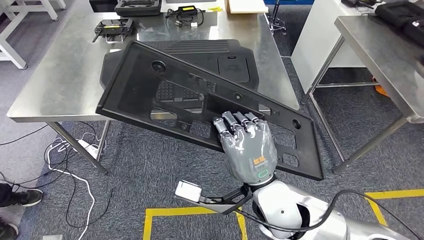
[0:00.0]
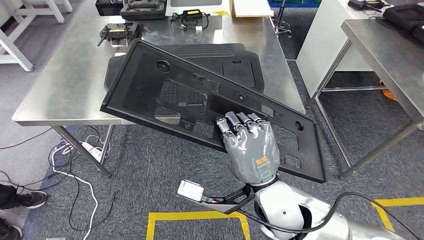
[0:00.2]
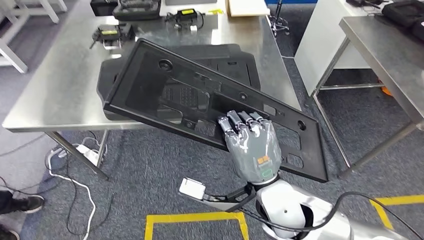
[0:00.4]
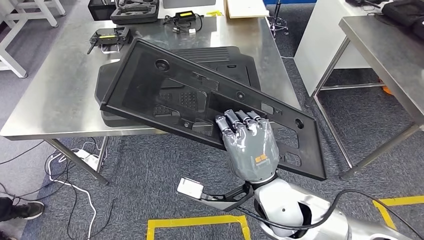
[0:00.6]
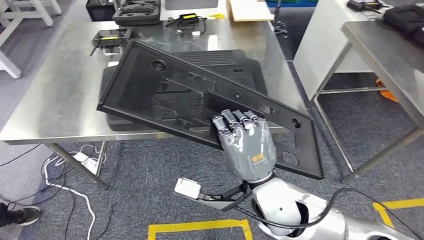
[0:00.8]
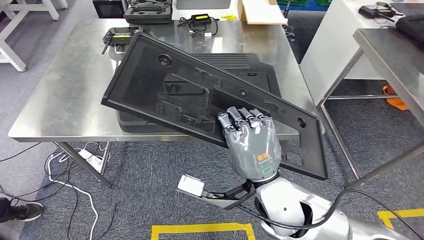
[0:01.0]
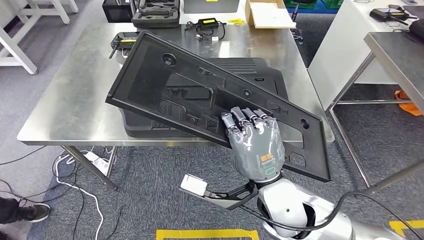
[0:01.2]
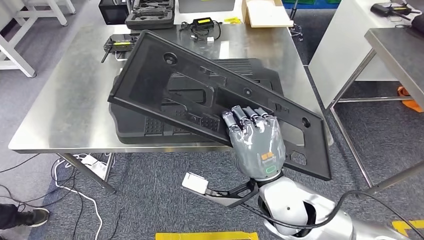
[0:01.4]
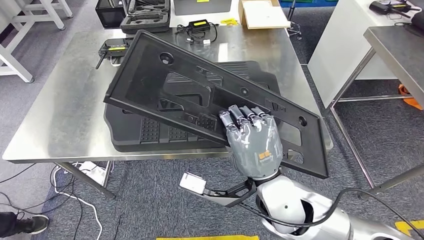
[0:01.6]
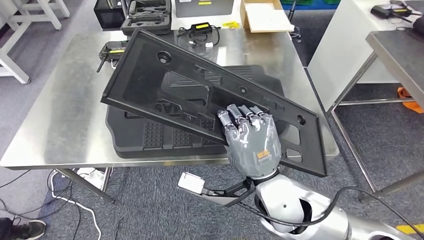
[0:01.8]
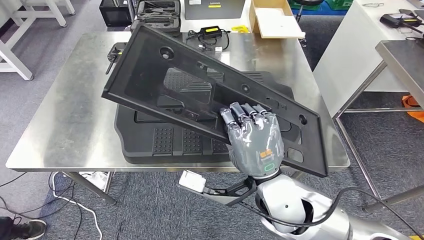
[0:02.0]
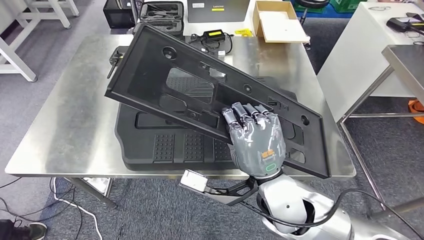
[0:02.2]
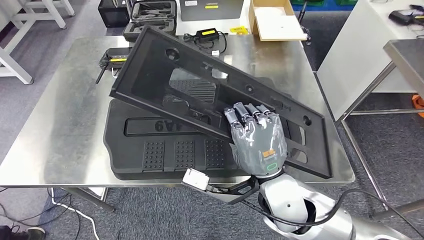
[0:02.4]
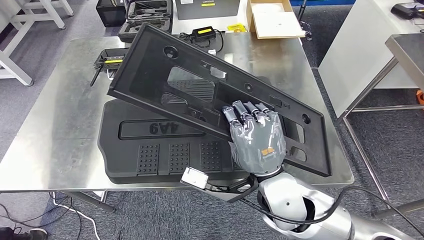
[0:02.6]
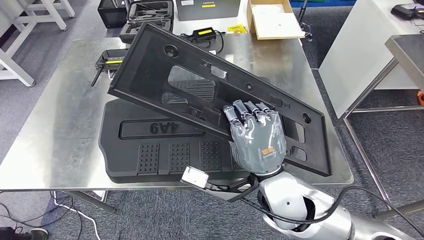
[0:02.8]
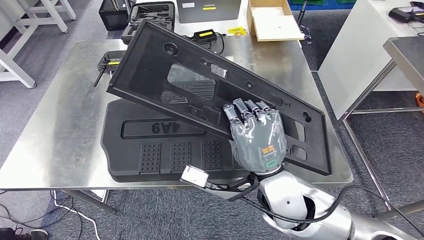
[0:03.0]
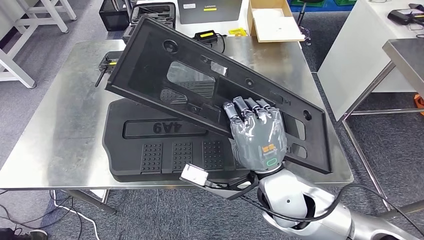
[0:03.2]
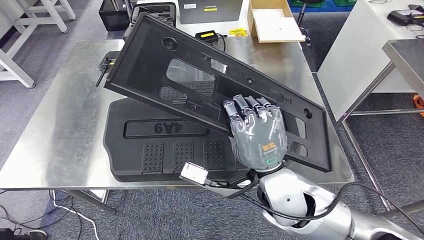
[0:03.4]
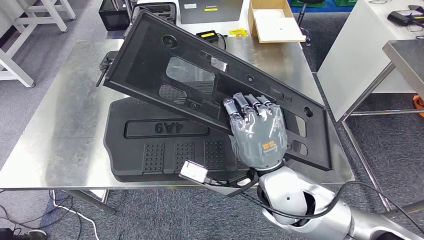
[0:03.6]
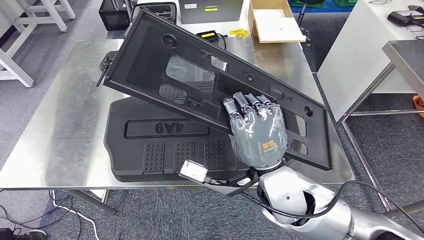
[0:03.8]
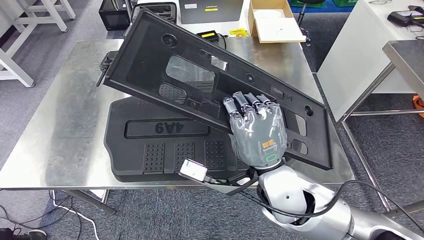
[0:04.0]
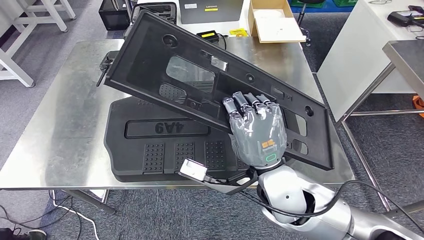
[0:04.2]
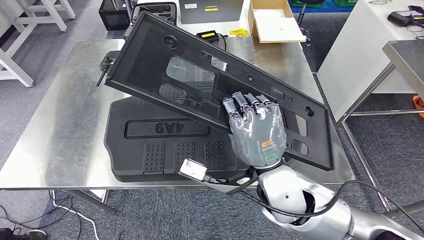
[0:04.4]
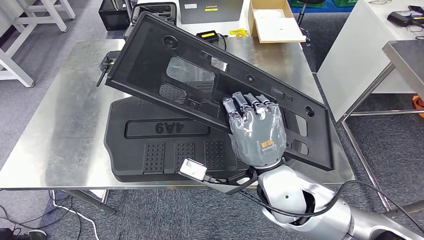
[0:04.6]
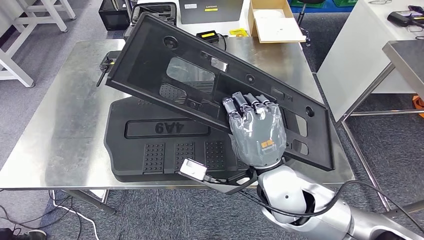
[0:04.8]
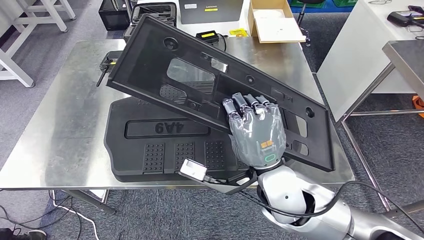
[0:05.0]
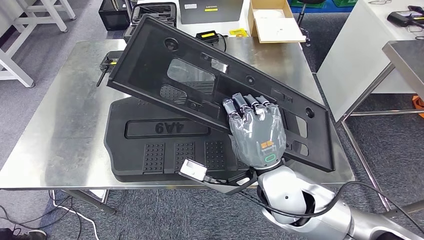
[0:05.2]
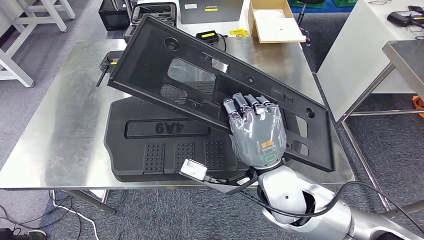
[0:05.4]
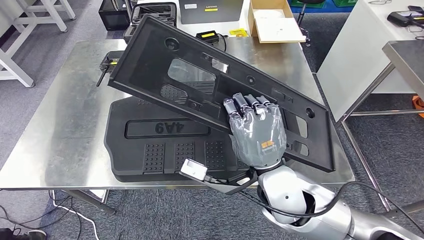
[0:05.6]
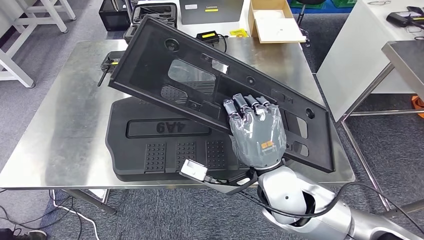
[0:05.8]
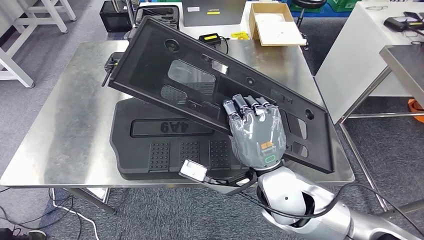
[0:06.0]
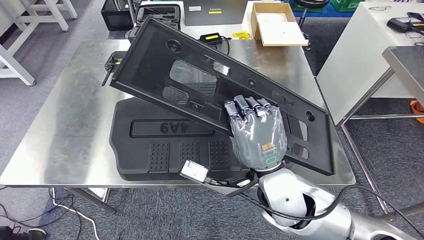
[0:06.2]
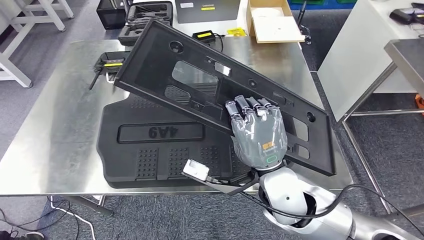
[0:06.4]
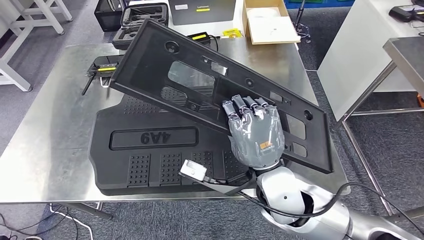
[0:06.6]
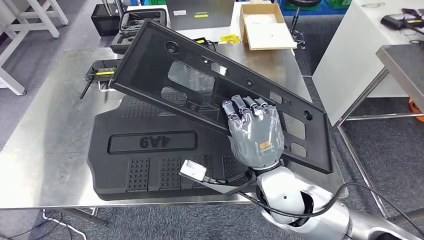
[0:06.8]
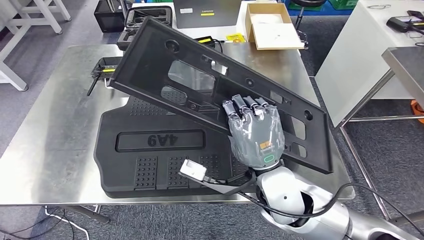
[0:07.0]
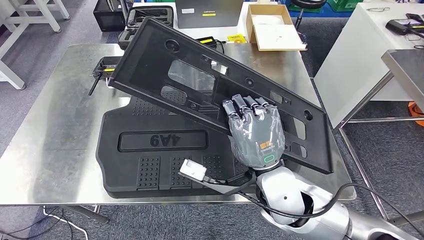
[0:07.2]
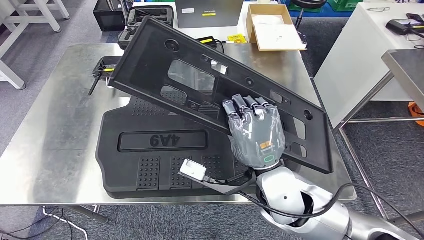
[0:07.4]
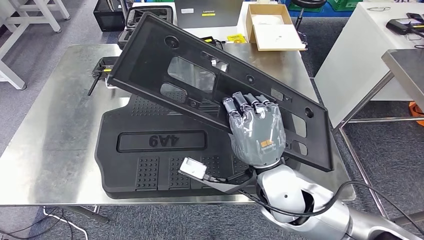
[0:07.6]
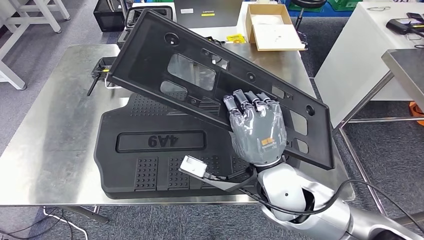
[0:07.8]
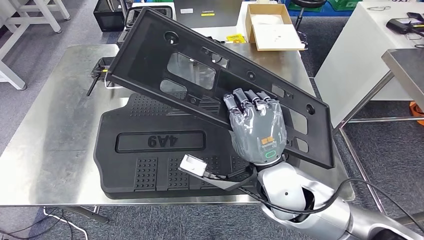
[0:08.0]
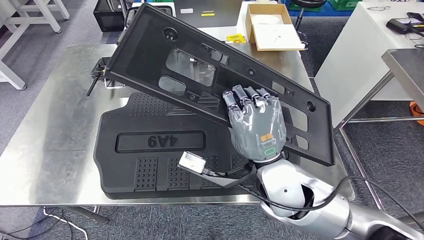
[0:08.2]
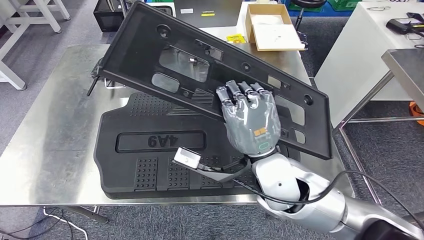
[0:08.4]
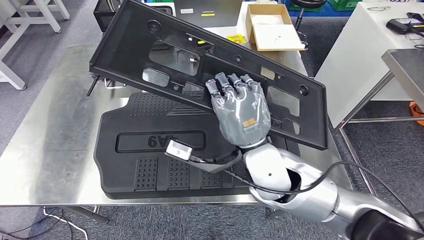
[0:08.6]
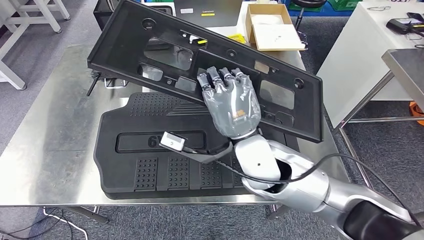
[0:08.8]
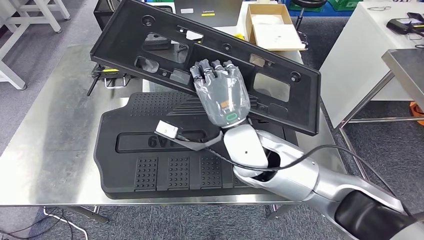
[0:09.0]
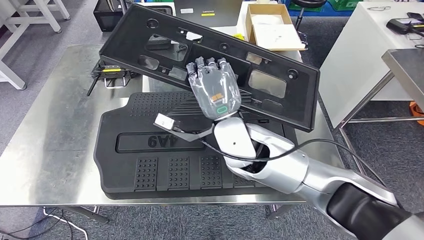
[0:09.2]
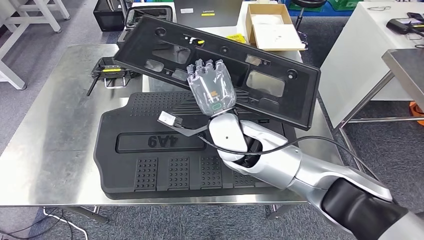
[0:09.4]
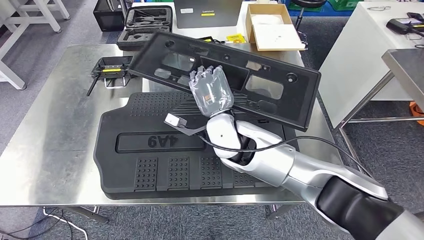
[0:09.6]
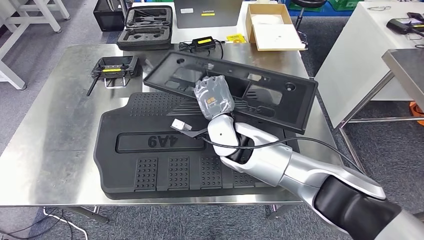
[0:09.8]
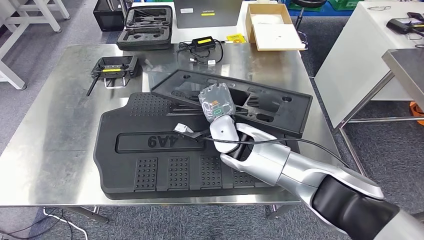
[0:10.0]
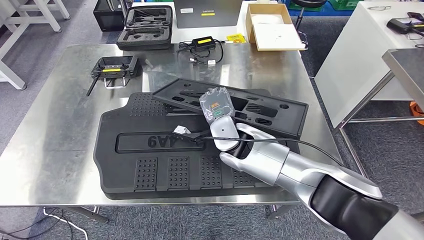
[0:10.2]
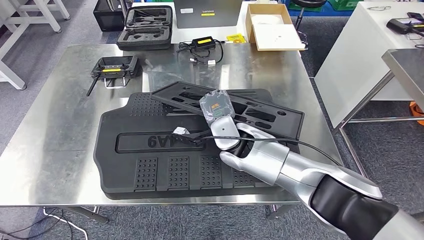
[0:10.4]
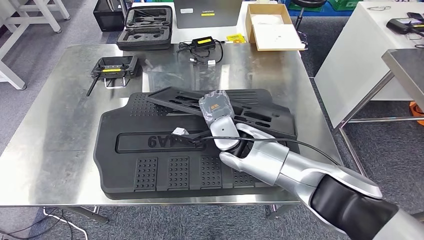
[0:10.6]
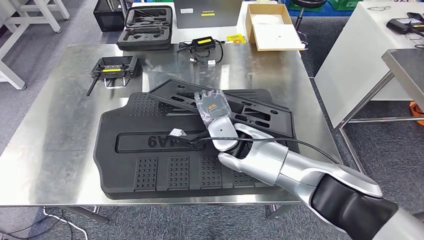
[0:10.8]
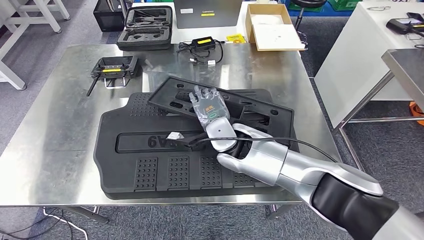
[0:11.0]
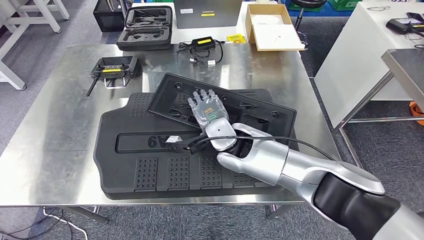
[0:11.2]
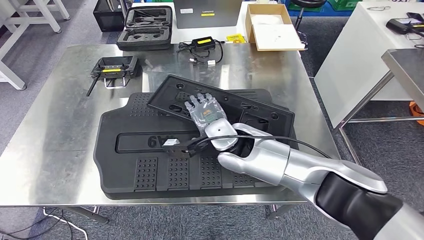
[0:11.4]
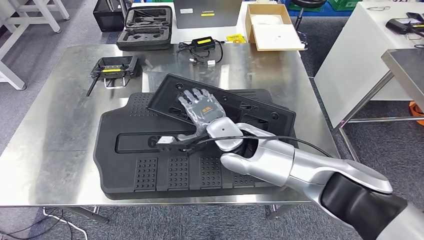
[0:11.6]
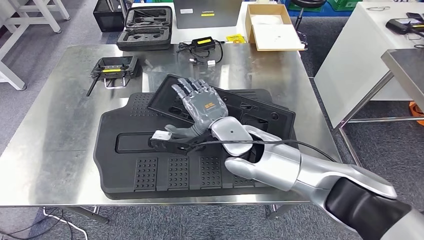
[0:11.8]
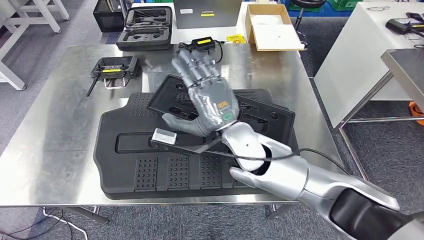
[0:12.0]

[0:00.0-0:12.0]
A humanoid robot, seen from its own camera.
0:04.4 to 0:06.0: The two hands keep their place.
0:10.4 to 0:12.0: The right hand travels backward and upward by roughly 10 cm.

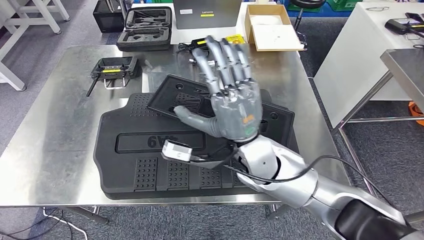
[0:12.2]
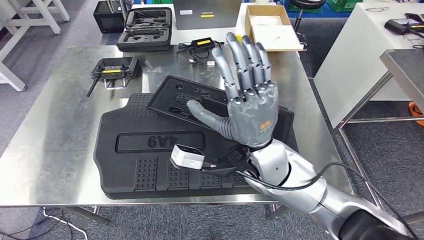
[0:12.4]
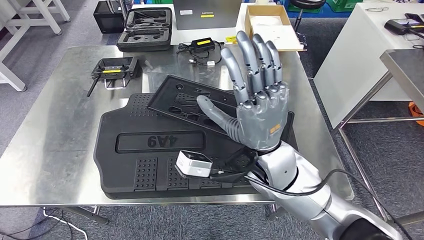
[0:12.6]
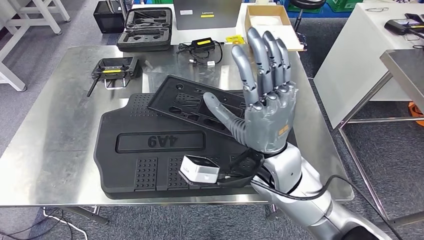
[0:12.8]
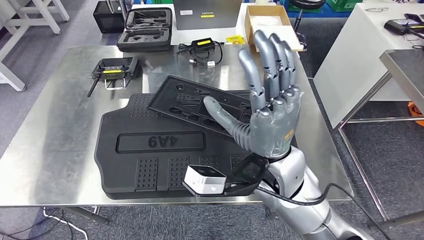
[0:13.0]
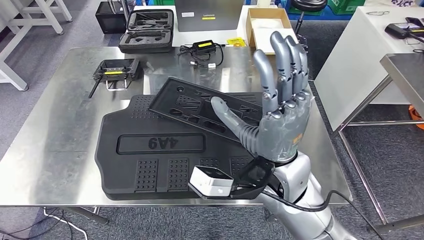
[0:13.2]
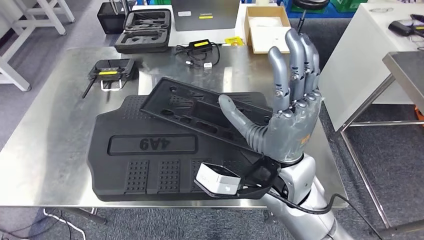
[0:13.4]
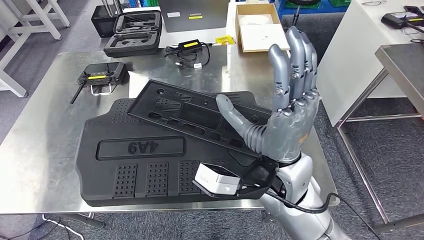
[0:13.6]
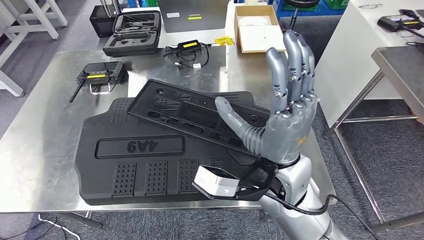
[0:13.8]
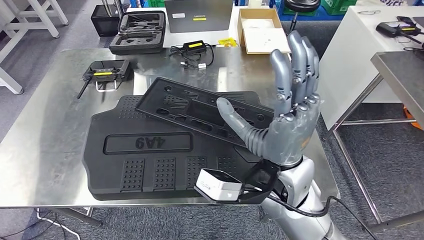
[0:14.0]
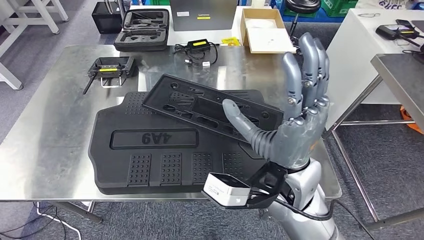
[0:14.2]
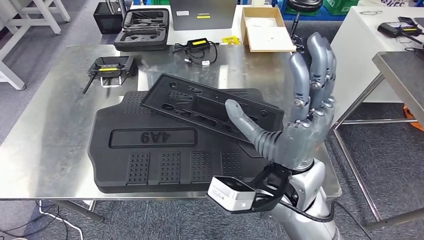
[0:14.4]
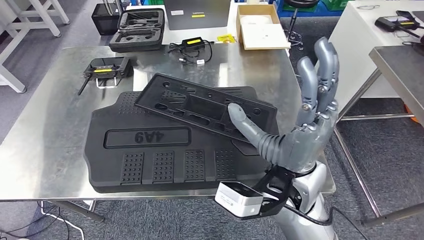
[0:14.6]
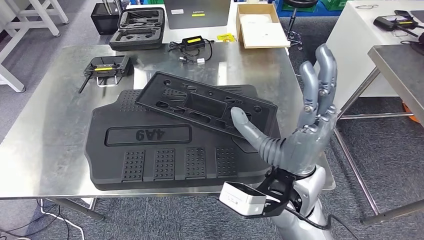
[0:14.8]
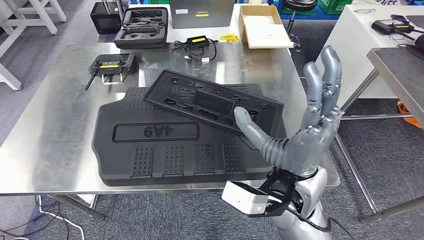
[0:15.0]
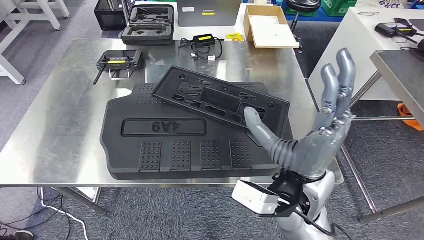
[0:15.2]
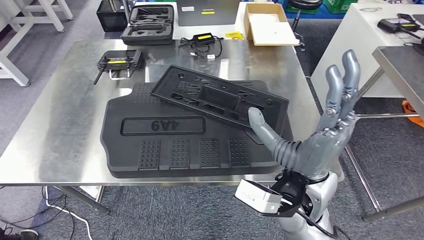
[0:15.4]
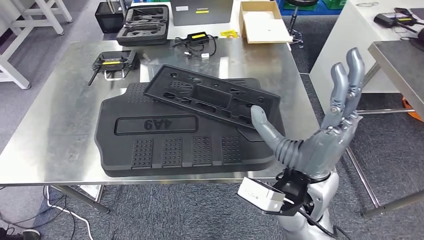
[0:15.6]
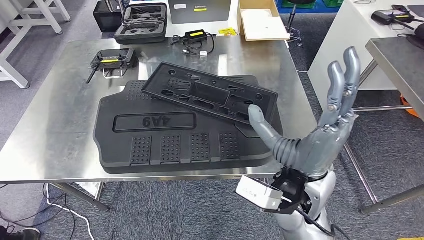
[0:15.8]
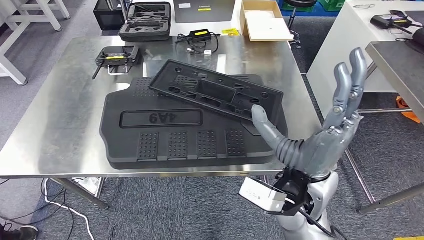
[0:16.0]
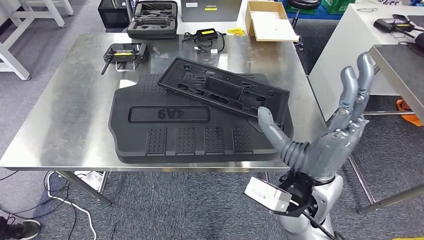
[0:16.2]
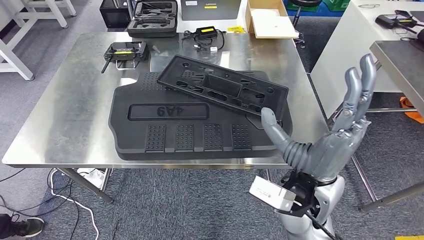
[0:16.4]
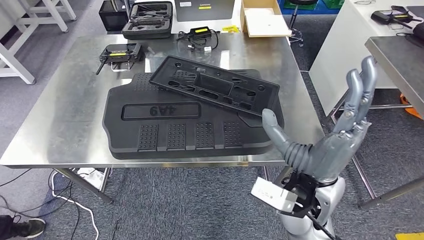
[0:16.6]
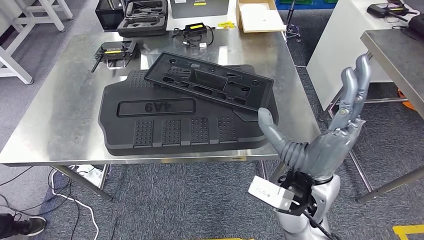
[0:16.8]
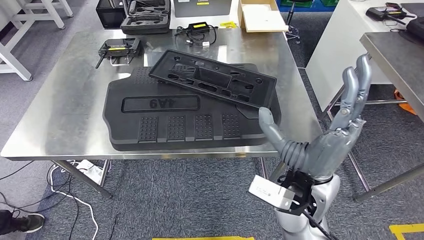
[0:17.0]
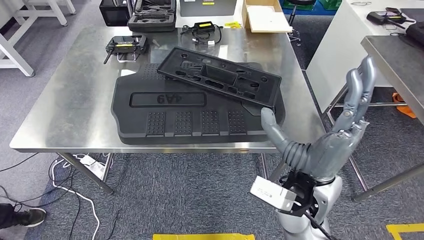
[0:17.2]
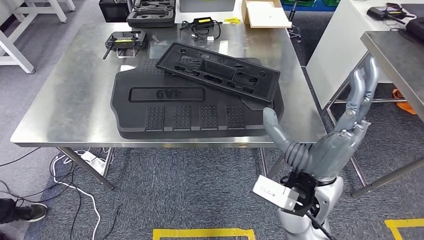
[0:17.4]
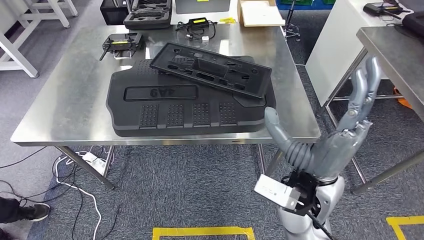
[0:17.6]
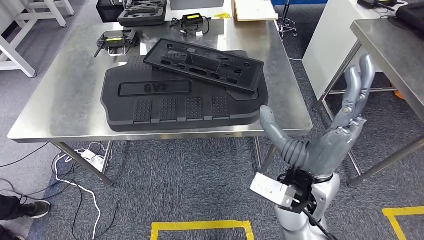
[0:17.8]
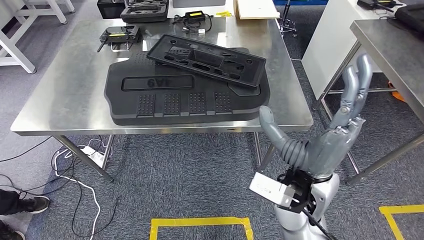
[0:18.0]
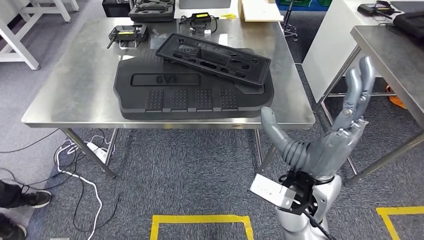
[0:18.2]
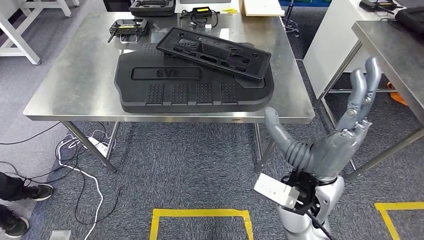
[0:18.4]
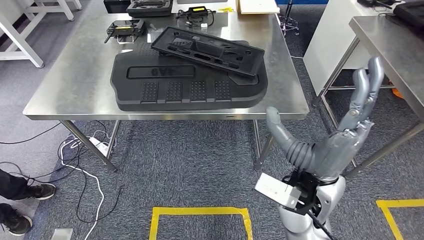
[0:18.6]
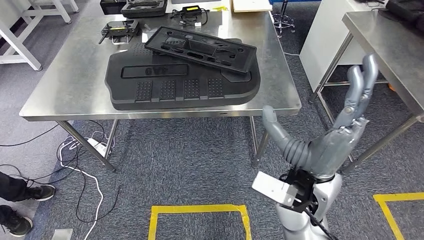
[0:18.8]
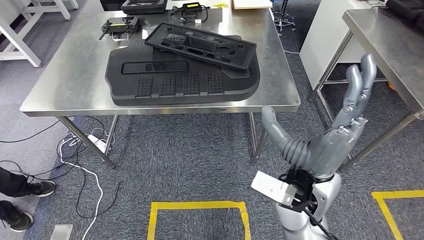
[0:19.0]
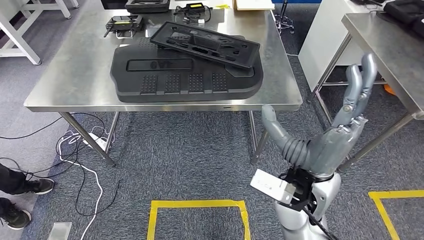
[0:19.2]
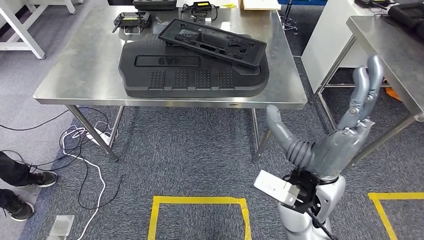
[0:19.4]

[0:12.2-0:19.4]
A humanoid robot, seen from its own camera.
Step, 0:12.2 to 0:16.8: Insert the large material into the corresponding slot on the workbench.
